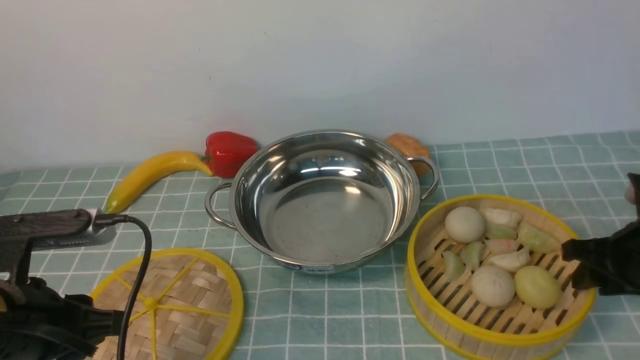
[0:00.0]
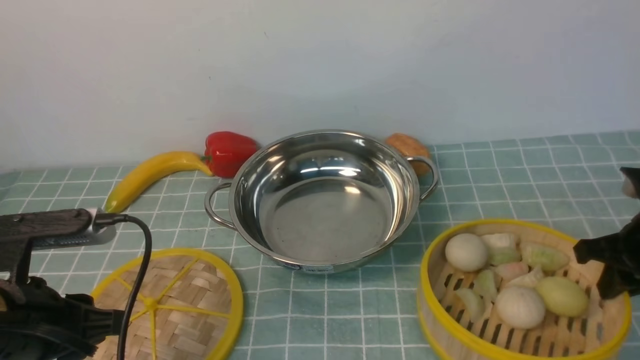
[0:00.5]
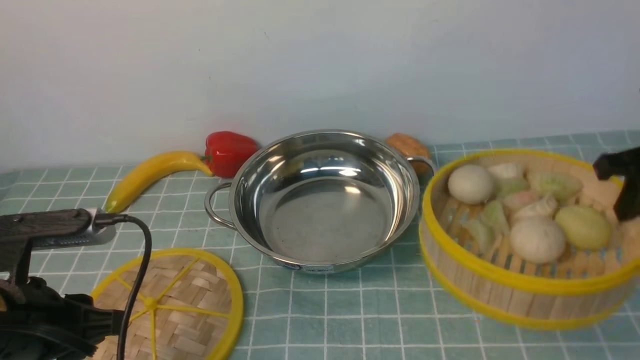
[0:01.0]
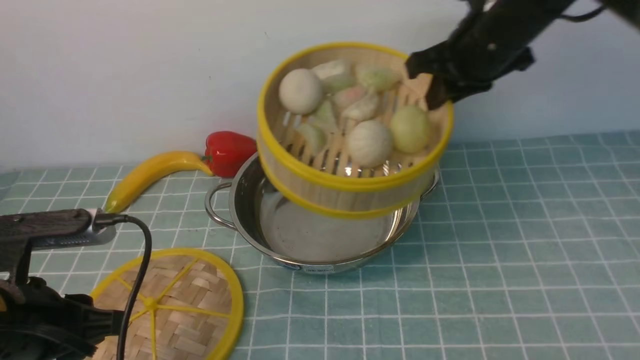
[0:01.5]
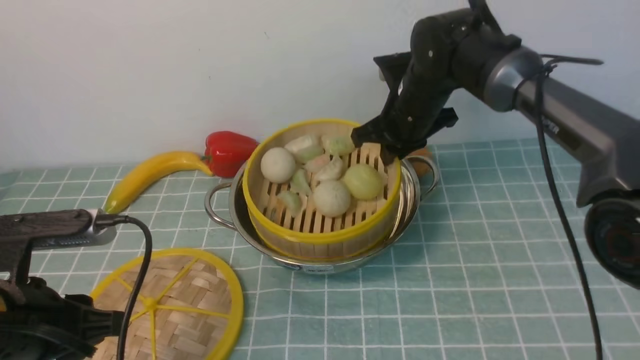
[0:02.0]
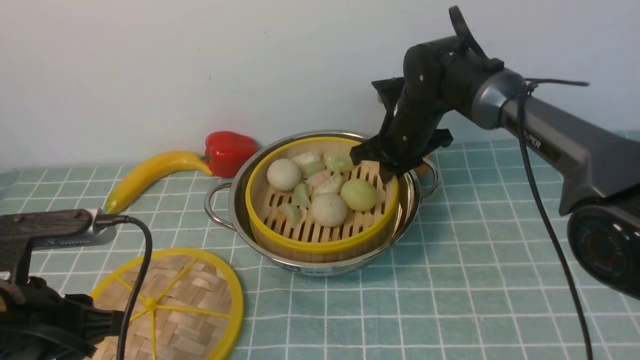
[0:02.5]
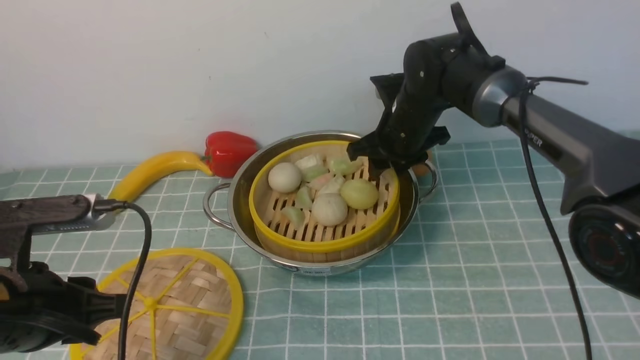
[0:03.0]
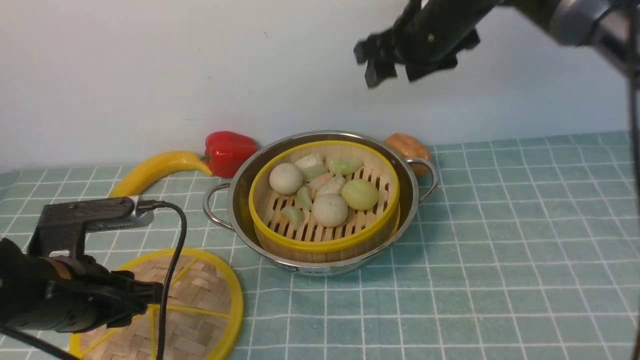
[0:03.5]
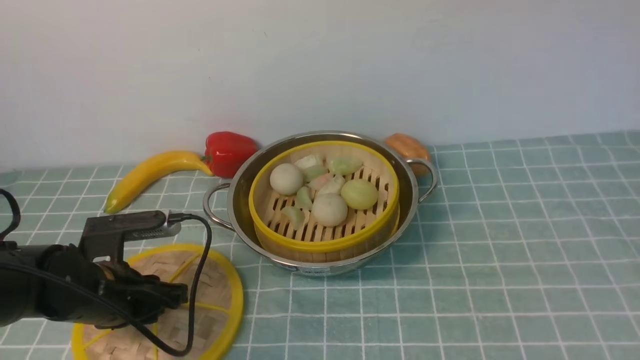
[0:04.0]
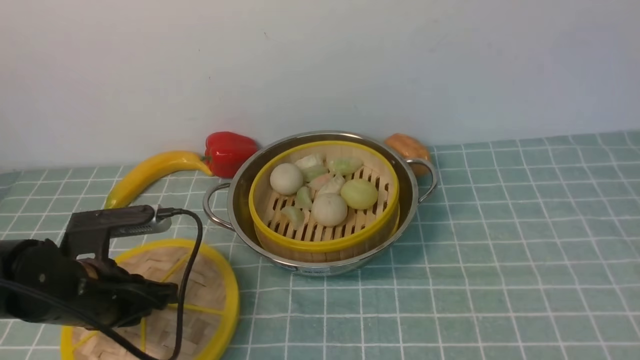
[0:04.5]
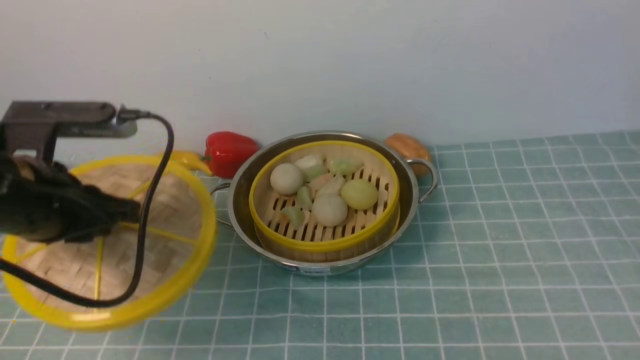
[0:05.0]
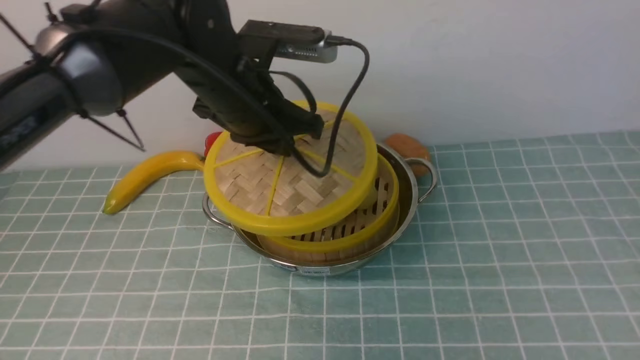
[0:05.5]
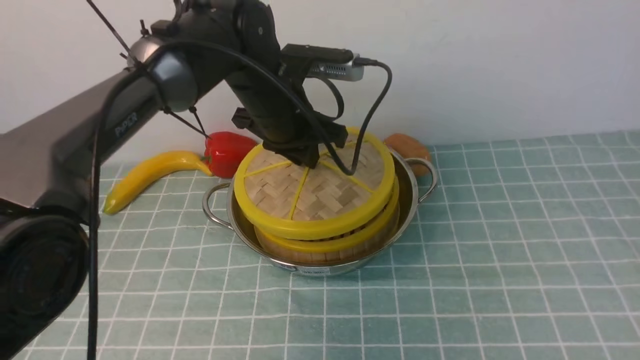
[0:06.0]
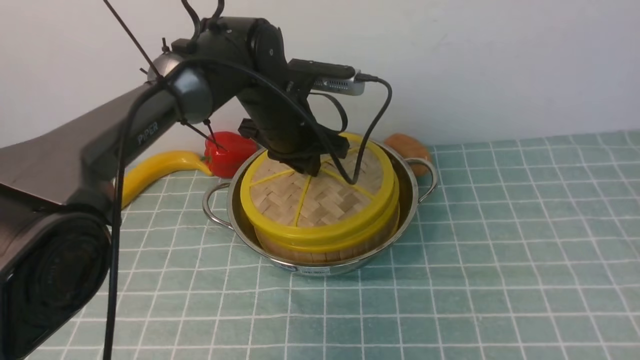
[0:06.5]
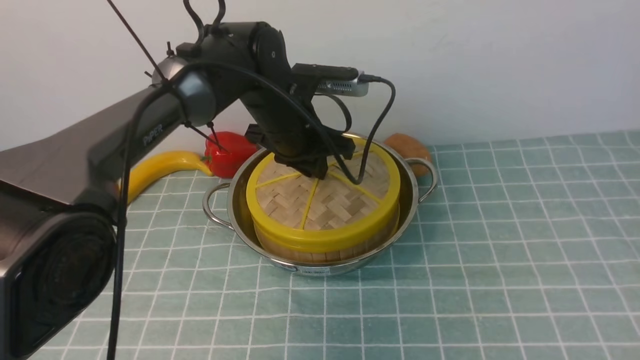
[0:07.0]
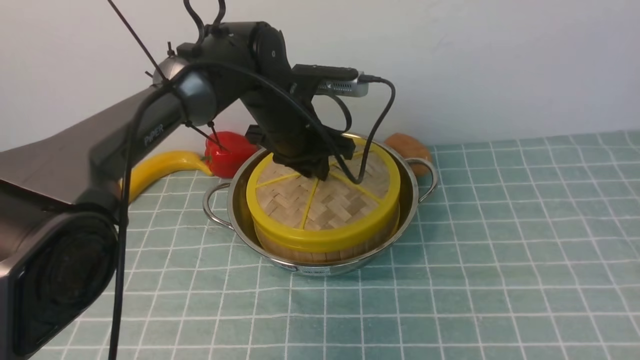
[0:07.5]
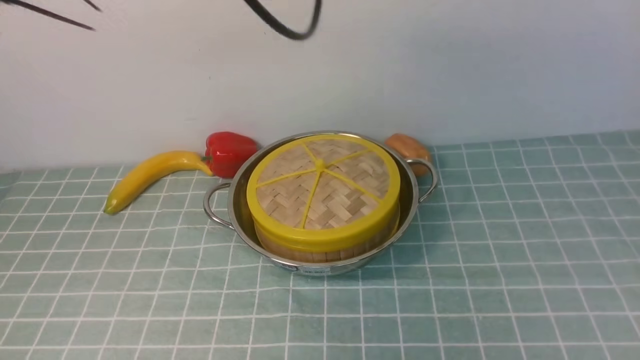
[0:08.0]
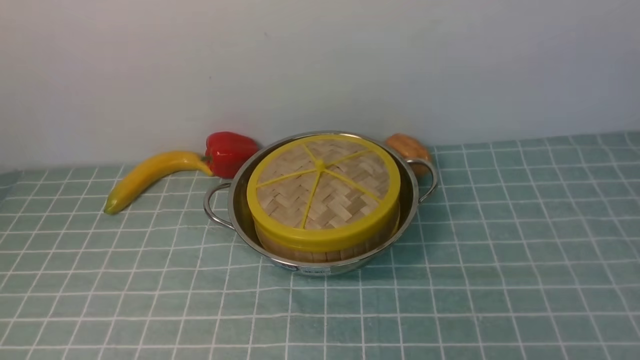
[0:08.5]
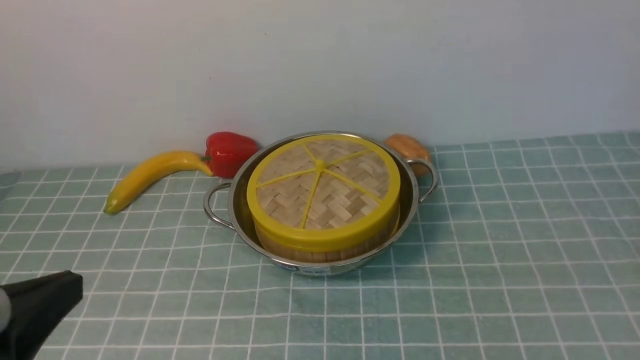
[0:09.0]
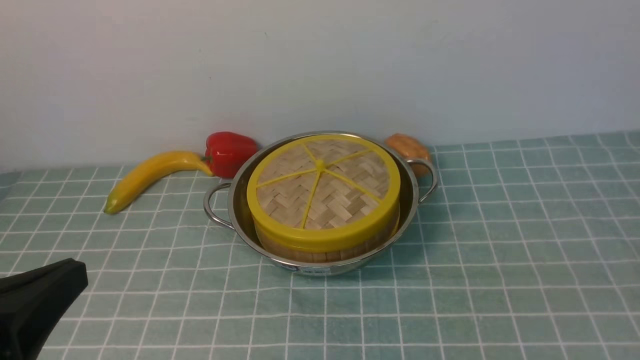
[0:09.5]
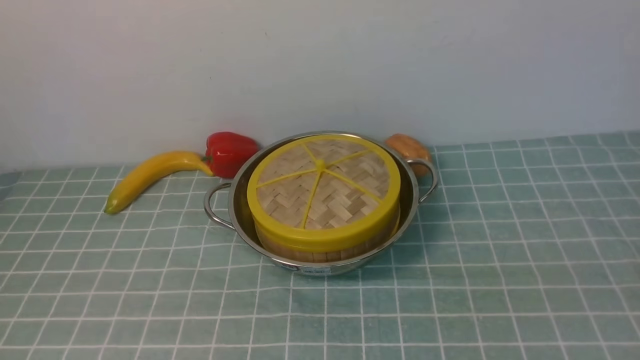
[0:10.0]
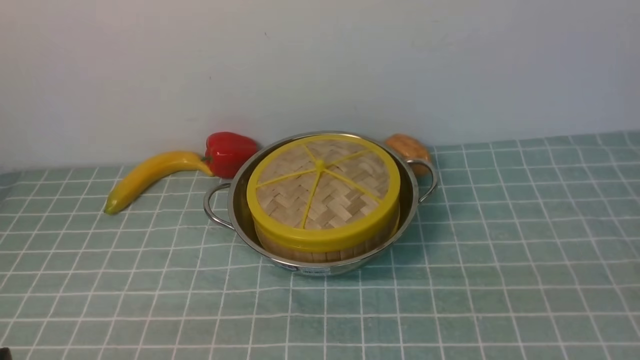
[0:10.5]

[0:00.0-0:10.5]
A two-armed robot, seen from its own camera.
Task of the whole recording: place the steamer in the pot on the blue tablecloth, and put the lid on the steamer.
Step, 0:01.0 to 0:03.0: use the right arm to put the steamer into the iron steamer pot in the middle.
Step, 0:03.5 to 0:05.0: use the left arm to lift the lid of the steamer.
Step, 0:05.5 to 0:08.0: use the left arm to place the steamer lid on the steamer.
0:00.0 to 0:02.0: The right gripper travels to the left and forward by approximately 30 cm.
0:02.0 to 0:04.0: The right gripper shifts about 50 cm upward and backward, and opens; the left gripper is displaced downward and forward by some 15 cm.
0:04.0 to 0:06.5: The right gripper is displaced to the right, backward and downward by about 15 cm, while the left gripper travels forward, to the right and upward by roughly 25 cm.
0:06.5 to 0:08.5: The left gripper goes about 40 cm backward, upward and to the left, and opens, then closes once more.

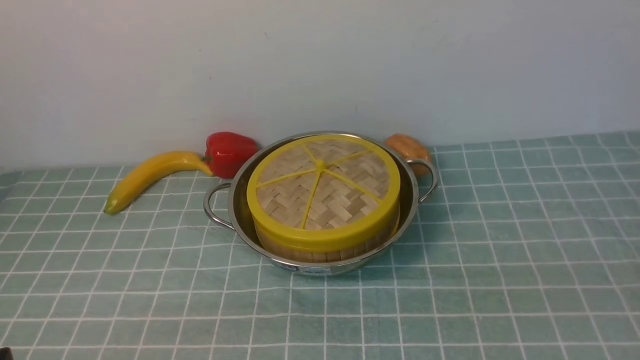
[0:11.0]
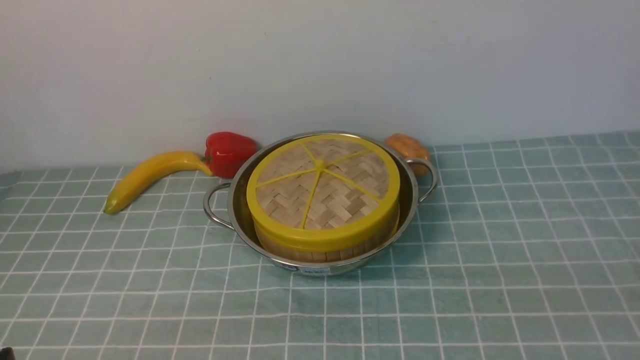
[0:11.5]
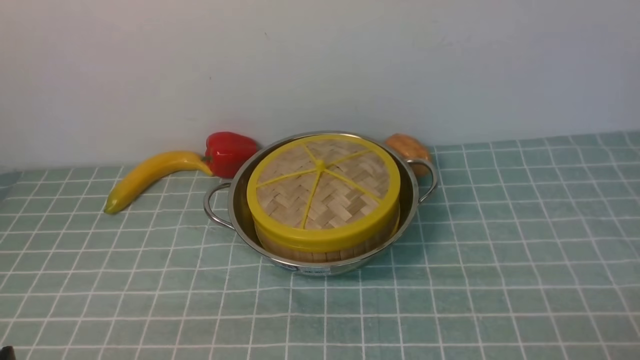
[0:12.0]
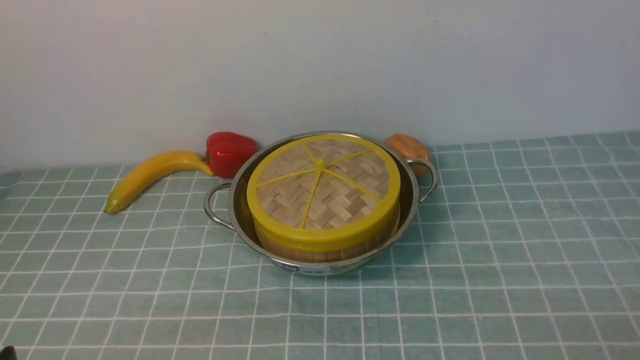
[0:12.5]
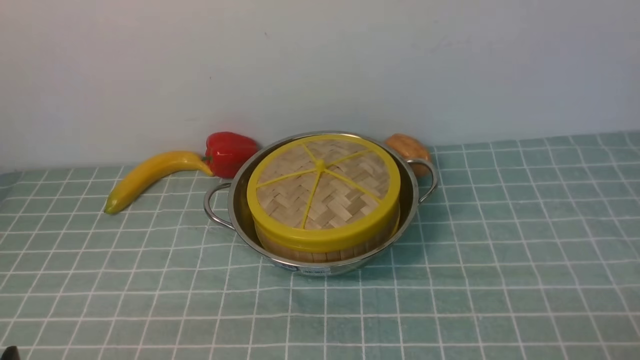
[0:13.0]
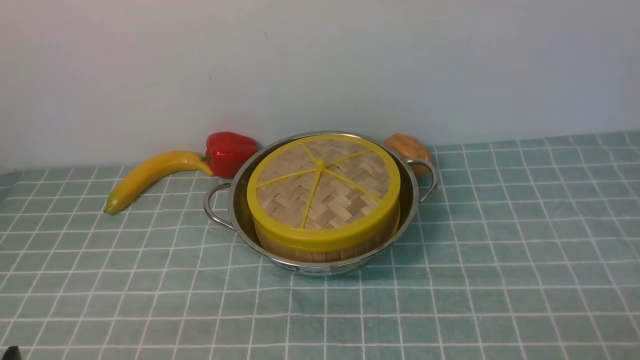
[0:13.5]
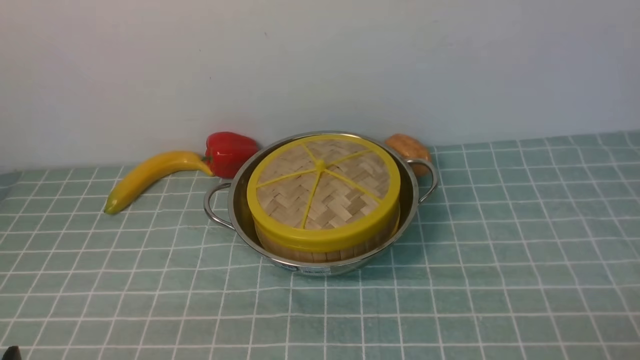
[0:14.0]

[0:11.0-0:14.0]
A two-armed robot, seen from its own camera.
Task of the whole recording: place the steamer in the pot on the blue tablecloth, and put the lid on the steamer.
0:12.5 to 0:14.0: Both grippers stay put.
